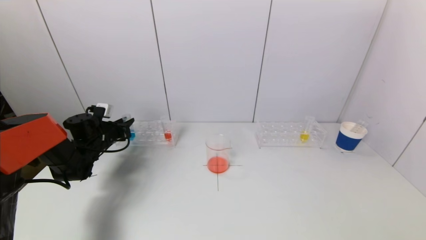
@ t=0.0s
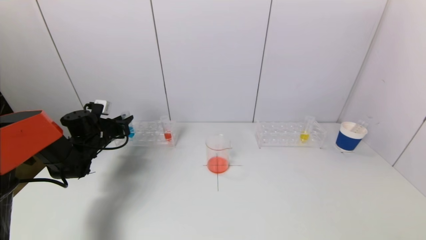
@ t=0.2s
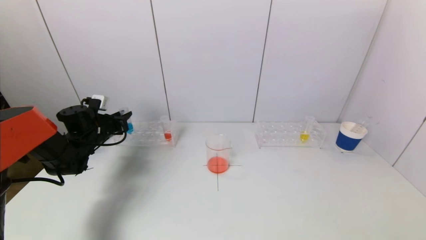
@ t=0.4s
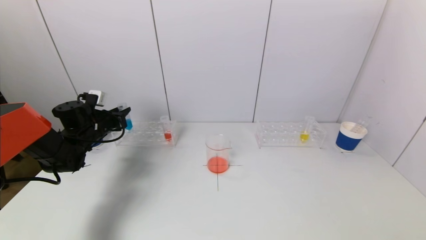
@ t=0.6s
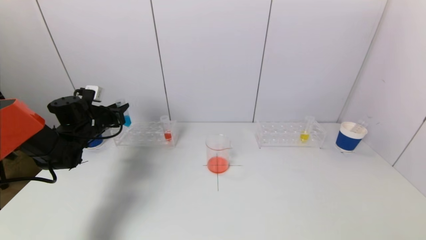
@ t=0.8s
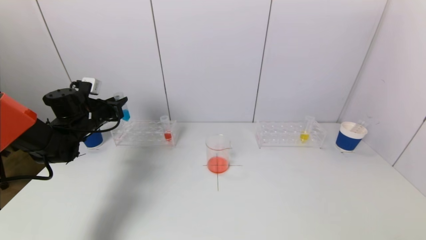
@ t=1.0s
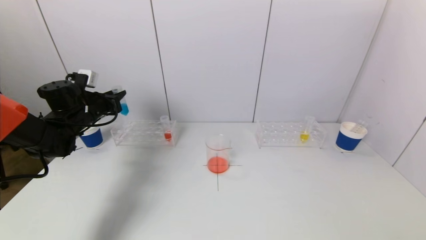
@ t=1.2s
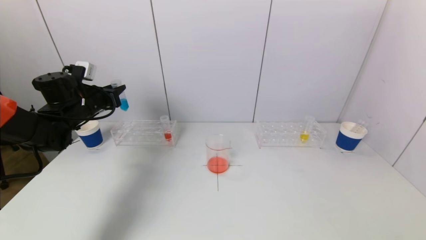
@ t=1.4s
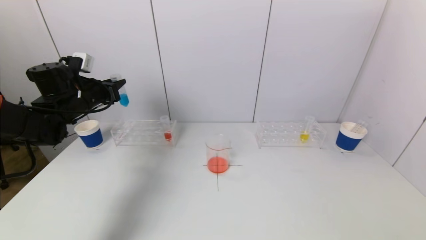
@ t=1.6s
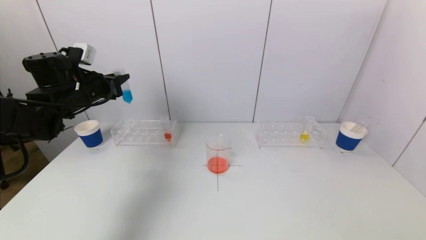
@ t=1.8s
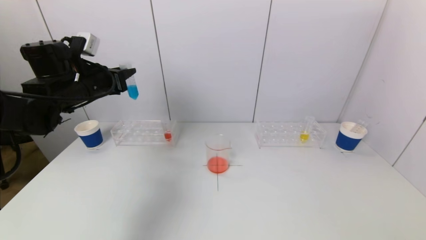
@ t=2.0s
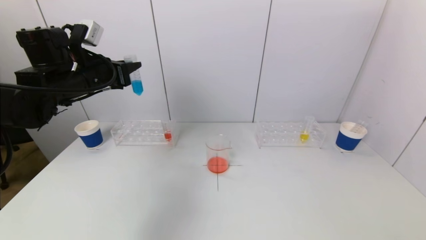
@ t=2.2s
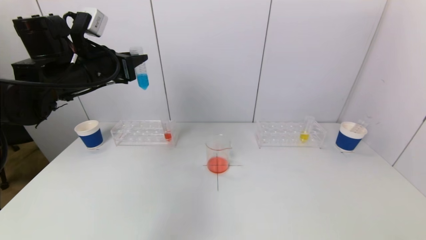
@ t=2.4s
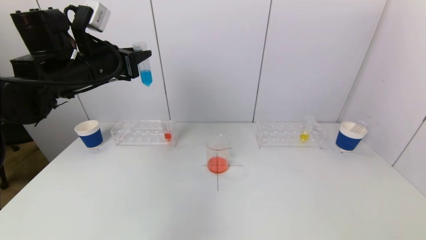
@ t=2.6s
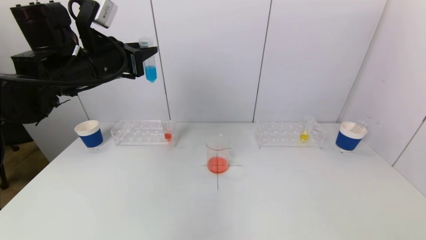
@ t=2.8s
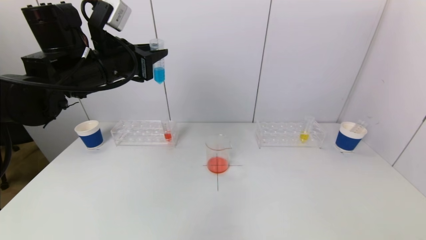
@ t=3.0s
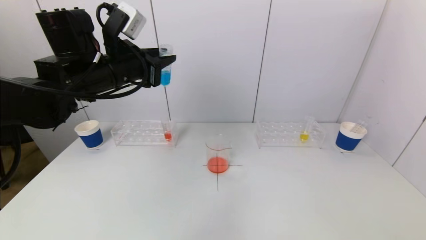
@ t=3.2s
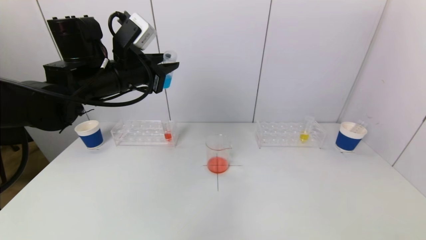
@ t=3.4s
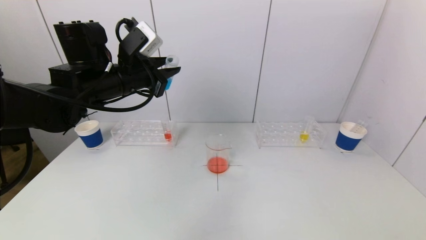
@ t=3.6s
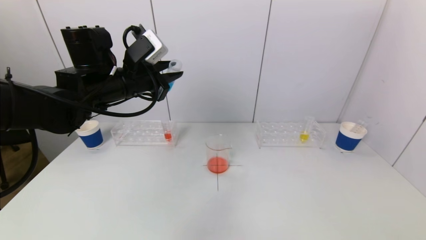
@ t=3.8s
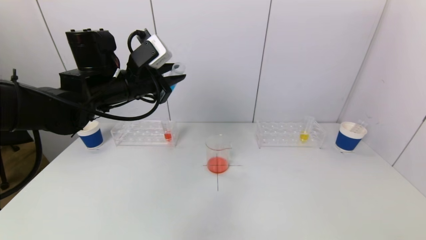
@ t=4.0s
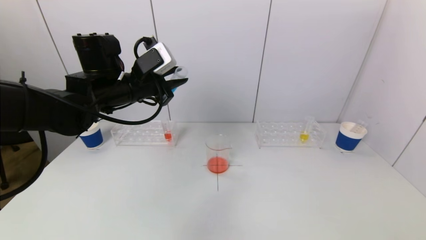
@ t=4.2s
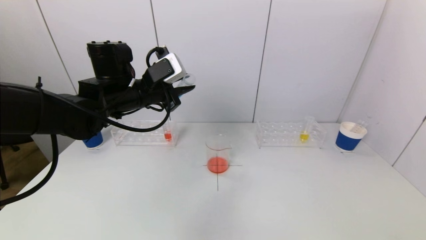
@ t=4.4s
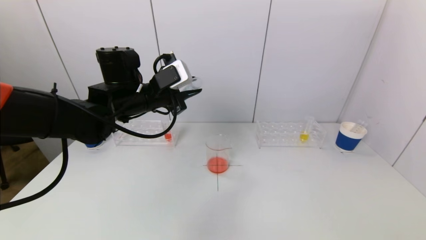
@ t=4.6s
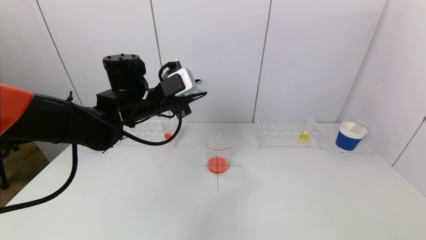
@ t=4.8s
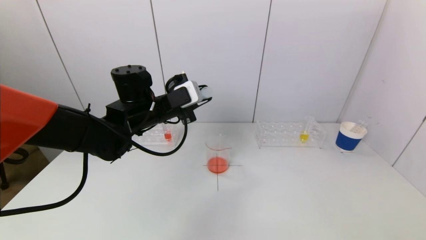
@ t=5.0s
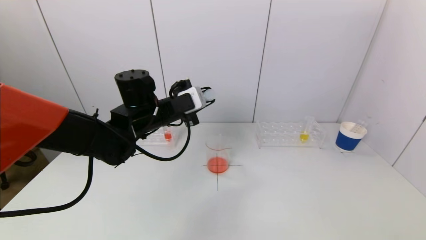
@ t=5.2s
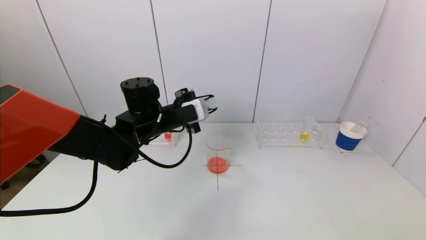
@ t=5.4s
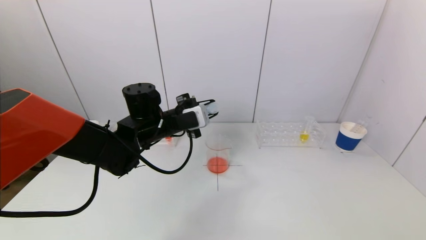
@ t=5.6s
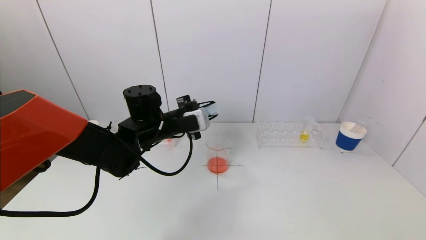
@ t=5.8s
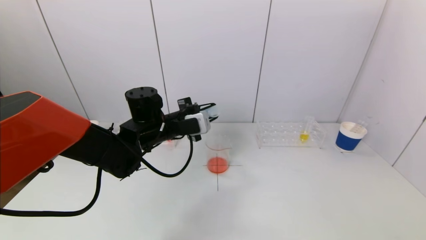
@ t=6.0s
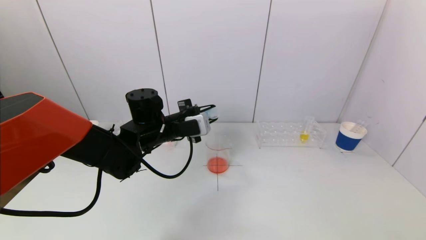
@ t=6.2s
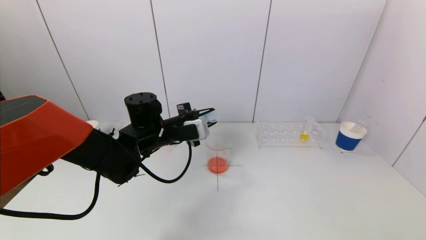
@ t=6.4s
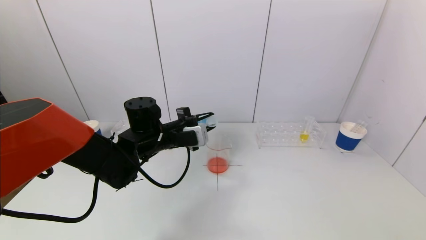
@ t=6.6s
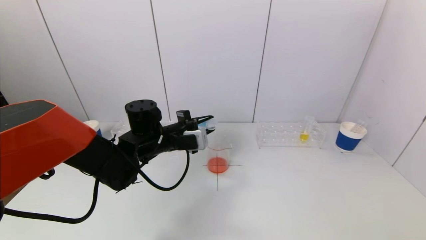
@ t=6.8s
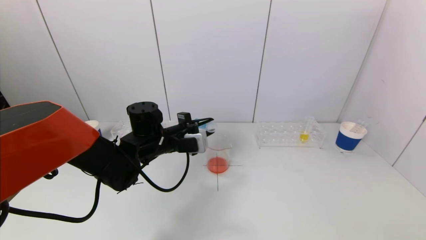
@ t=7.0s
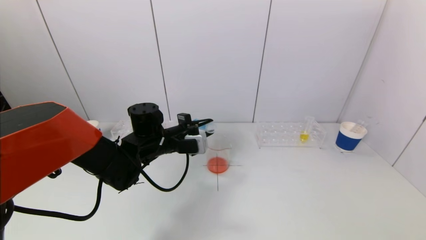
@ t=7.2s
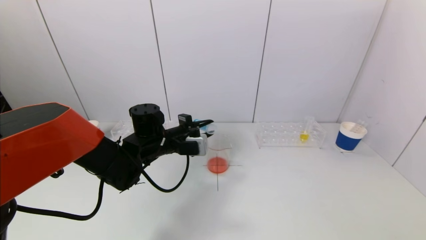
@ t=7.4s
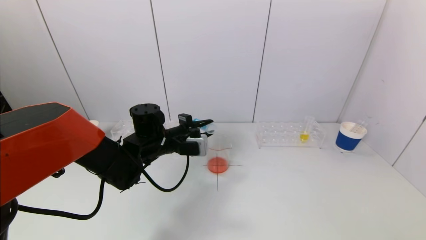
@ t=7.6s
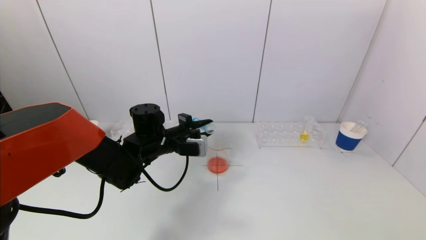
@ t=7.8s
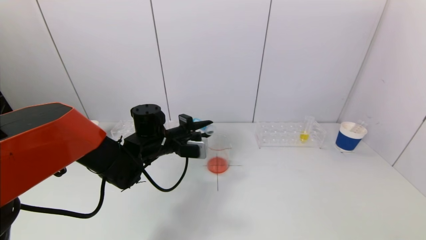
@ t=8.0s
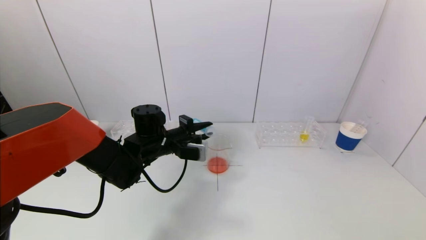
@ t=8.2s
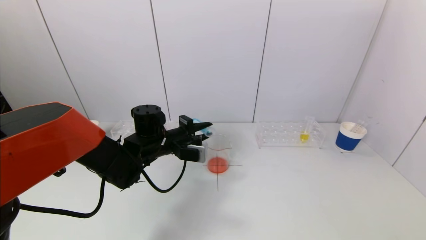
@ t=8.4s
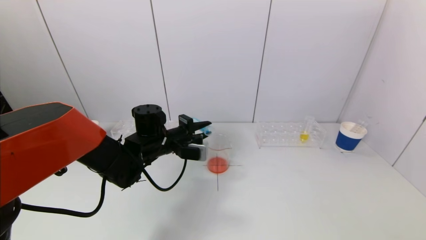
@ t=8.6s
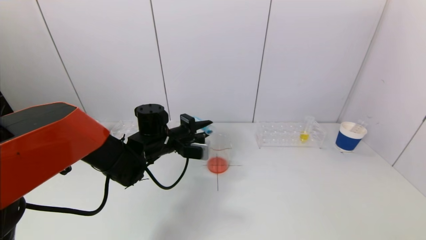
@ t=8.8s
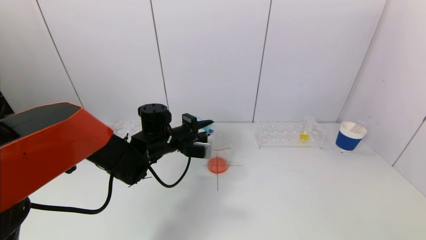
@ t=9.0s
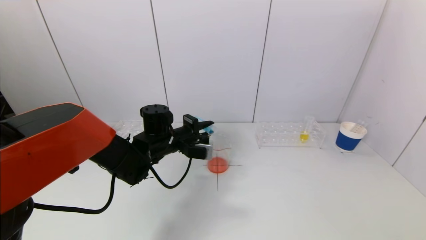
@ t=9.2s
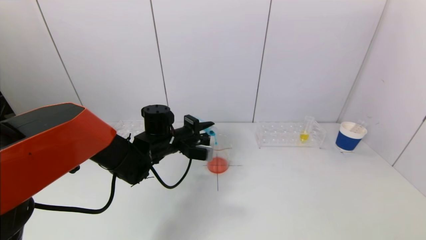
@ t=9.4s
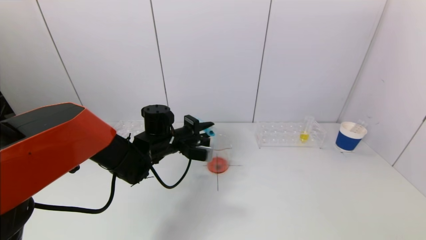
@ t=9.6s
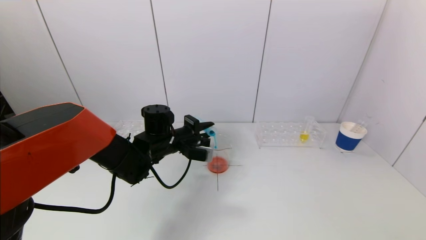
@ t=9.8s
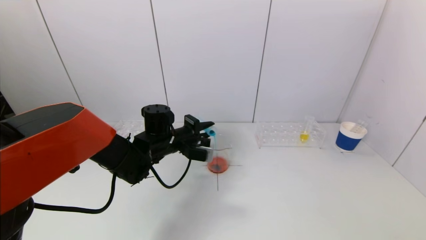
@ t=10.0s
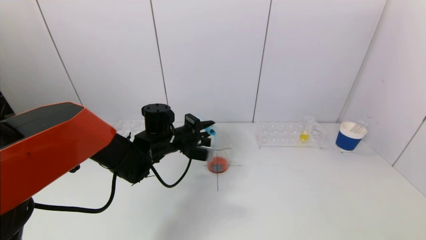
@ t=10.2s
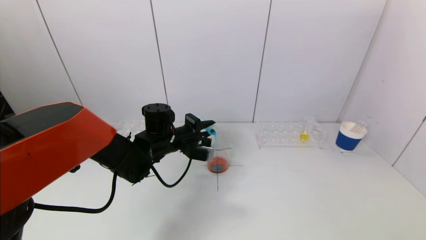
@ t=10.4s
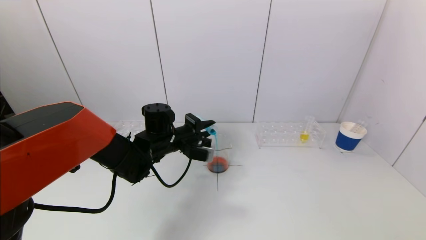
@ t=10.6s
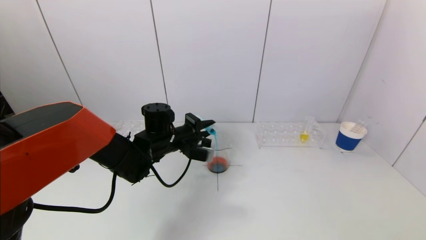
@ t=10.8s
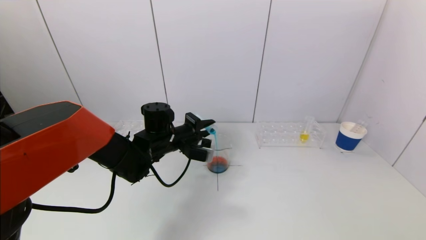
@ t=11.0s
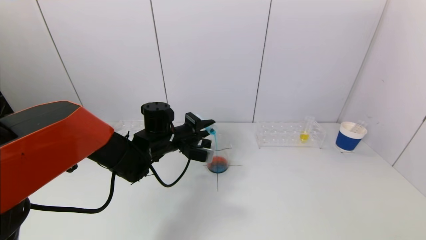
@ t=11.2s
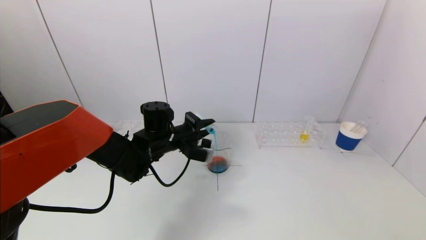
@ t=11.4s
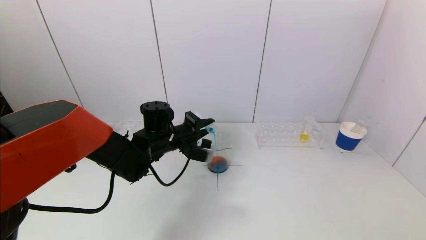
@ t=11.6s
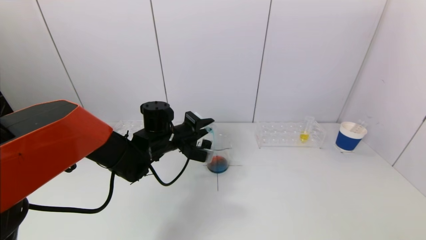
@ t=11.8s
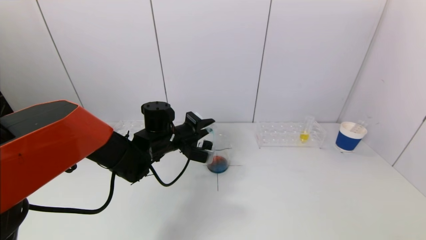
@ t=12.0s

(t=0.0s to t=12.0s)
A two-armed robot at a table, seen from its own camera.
Task of the whole recording: pick up a test tube with pigment on left test tube rack and a test tube with pigment on right test tube rack by grippers and pour them into the beaker.
t=0.0s - t=1.6s: The left gripper heads upward, covering some 15 cm.
t=1.6s - t=3.0s: The left gripper heads to the right, upward and backward, covering about 15 cm.
t=3.0s - t=4.4s: The left gripper heads downward, covering approximately 5 cm.
t=4.4s - t=6.0s: The left gripper travels downward by roughly 10 cm.
t=6.0s - t=9.0s: The grippers move only a little.
t=9.0s - t=12.0s: The grippers stay close to where they were, moving slightly.

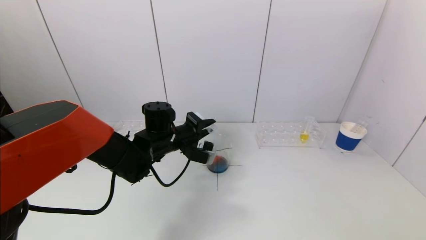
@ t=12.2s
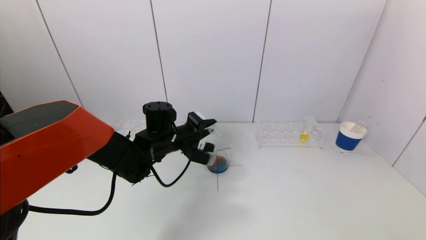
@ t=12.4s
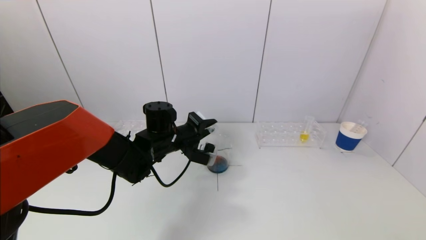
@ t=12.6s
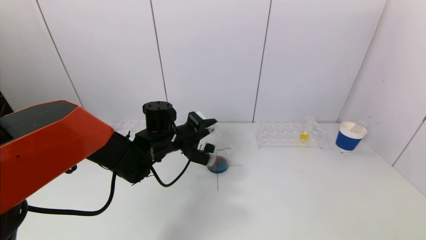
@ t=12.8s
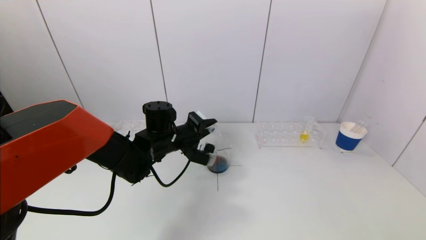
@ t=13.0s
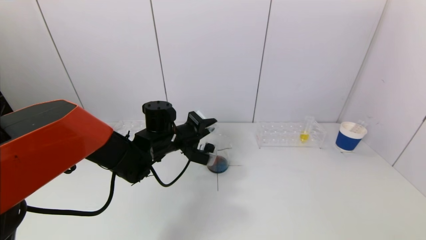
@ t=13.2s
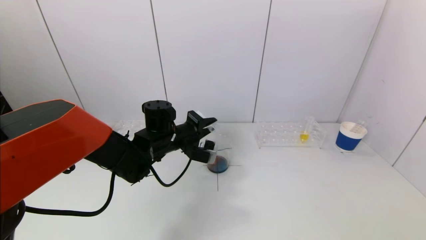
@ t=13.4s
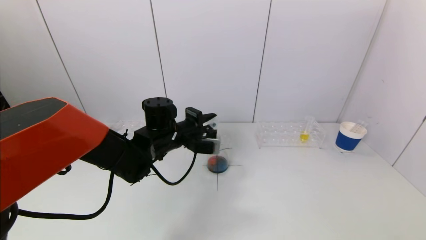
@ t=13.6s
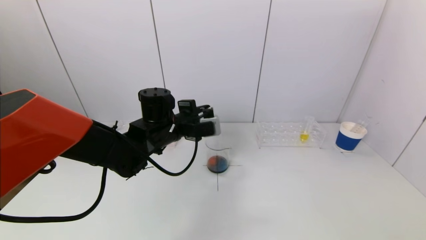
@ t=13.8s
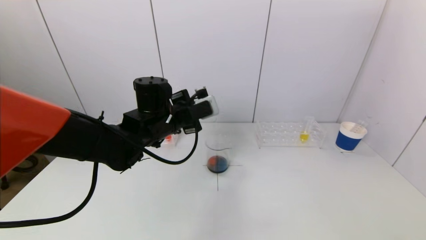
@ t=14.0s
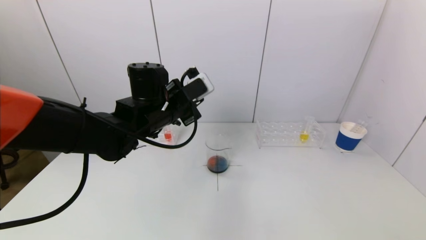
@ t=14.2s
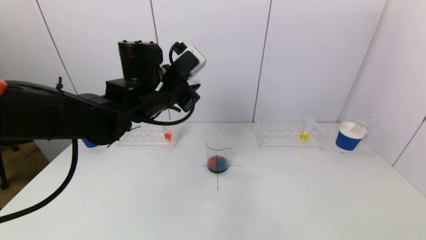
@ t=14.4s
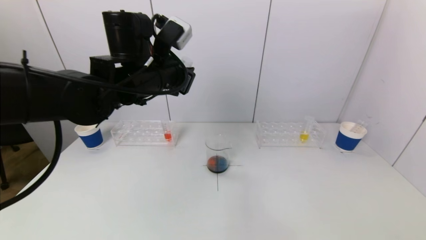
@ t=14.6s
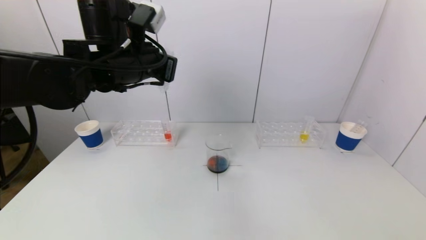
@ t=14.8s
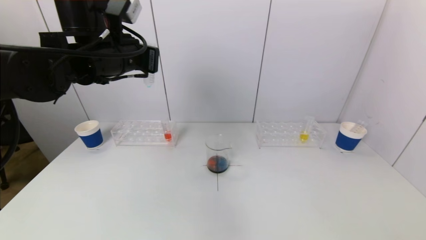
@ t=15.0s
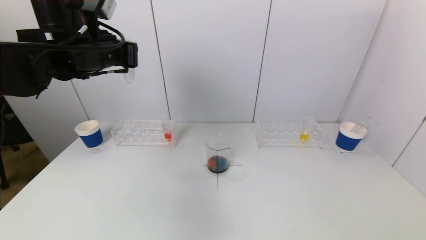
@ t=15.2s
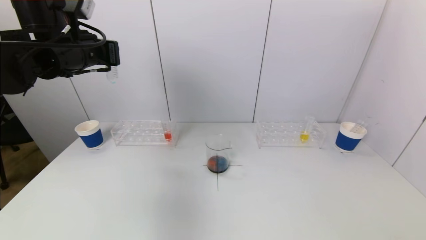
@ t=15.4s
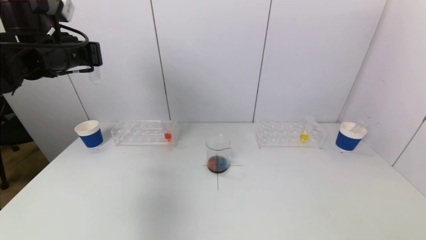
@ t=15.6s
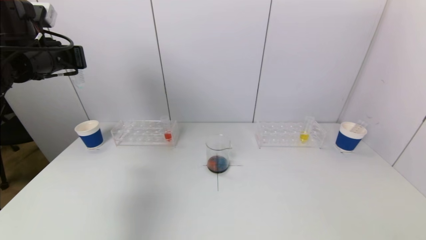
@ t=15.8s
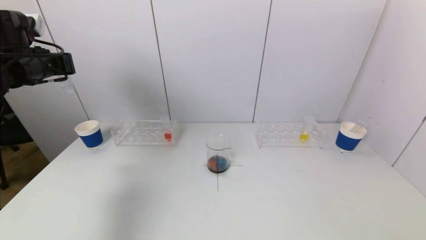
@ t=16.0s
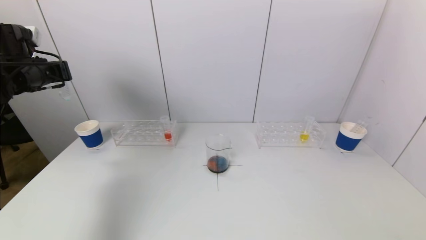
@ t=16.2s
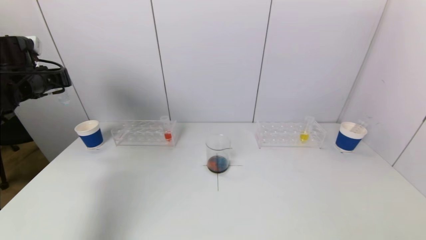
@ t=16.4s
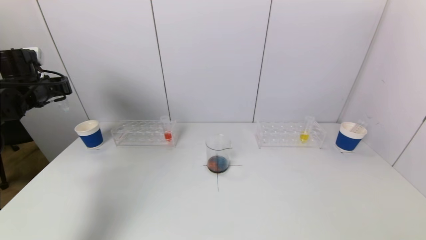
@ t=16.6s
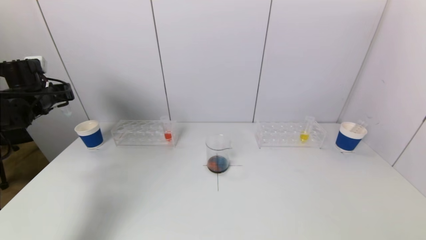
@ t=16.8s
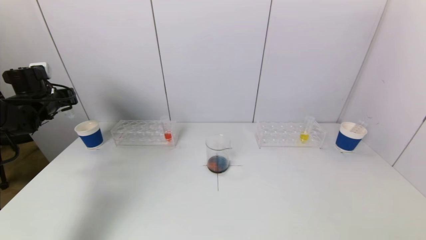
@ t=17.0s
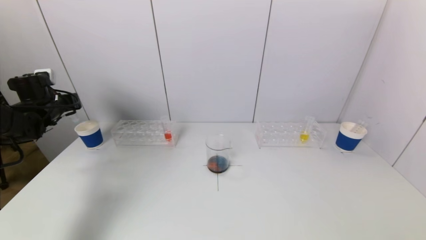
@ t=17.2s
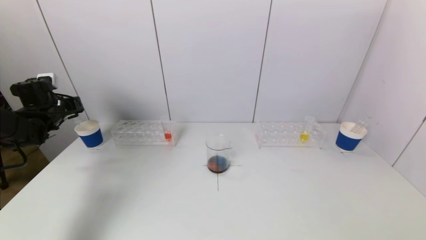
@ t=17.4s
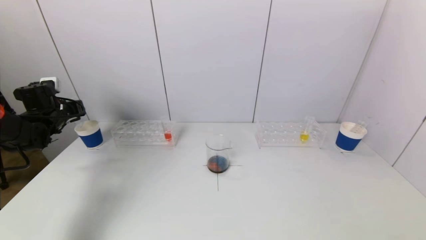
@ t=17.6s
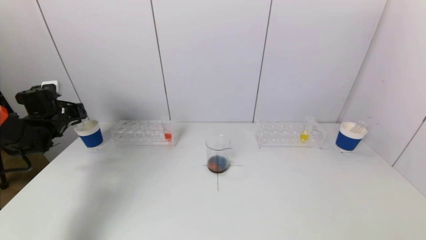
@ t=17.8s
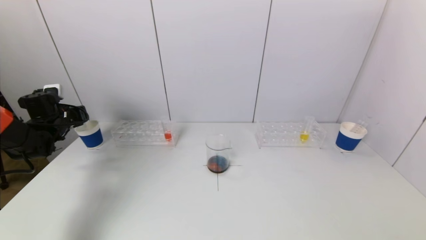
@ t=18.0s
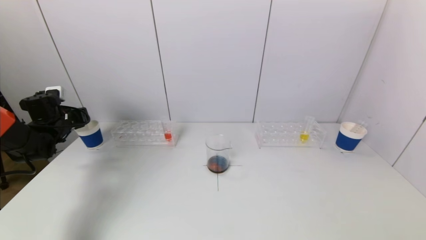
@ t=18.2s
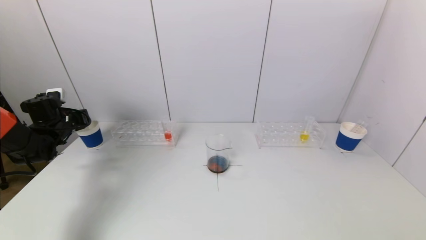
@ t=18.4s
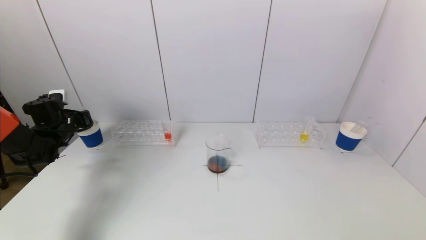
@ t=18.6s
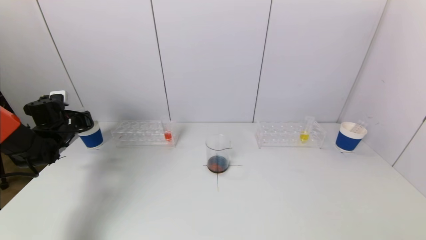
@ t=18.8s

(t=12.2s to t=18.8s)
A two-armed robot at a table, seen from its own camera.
Task of the whole recording: pick up a test tube with pigment on left test tube rack and a test tube with pigment on right test tube rack by grippers and pour them into the beaker.
t=12.2s - t=13.8s: The left gripper changes place by some 5 cm.
t=13.8s - t=15.4s: The left gripper moves to the left and upward, roughly 20 cm.
t=15.4s - t=17.2s: The left gripper is displaced to the left, downward and forward by roughly 25 cm.
t=17.2s - t=18.8s: The left gripper travels downward by about 5 cm.
